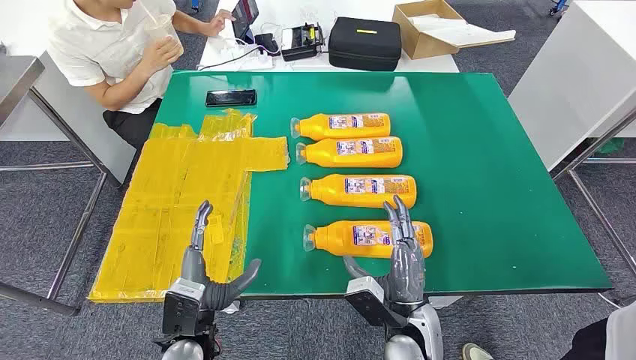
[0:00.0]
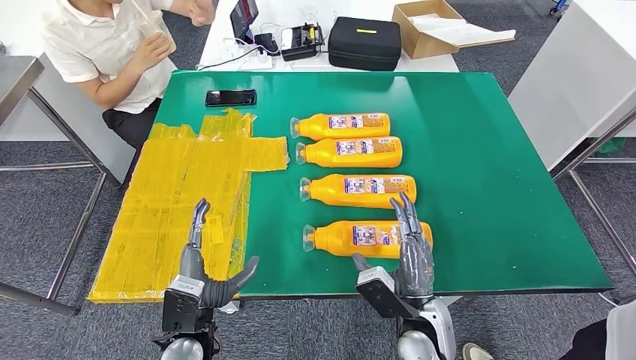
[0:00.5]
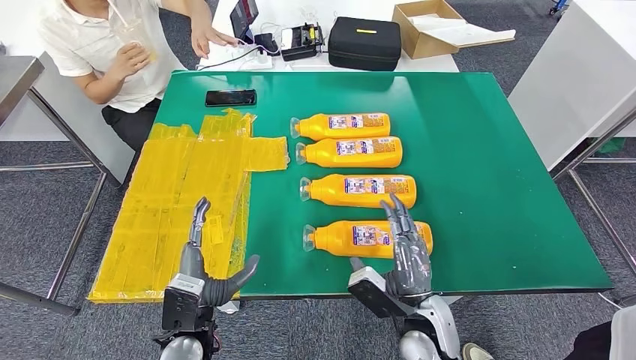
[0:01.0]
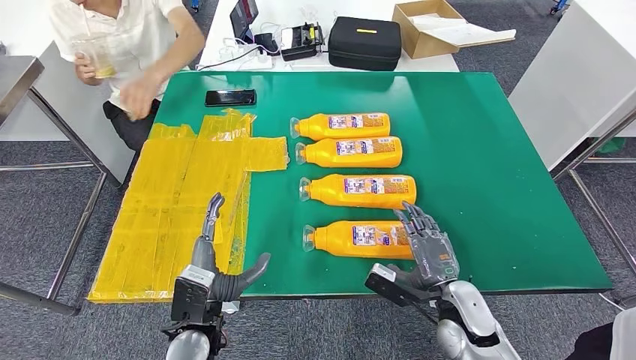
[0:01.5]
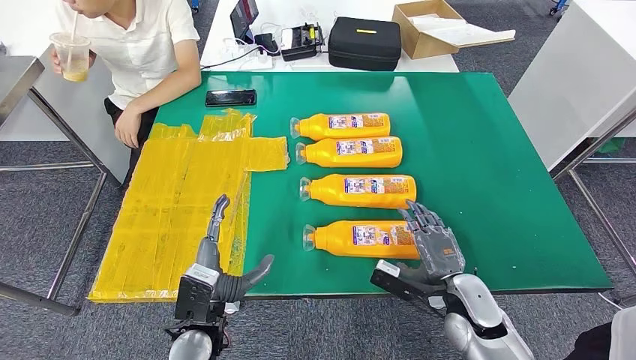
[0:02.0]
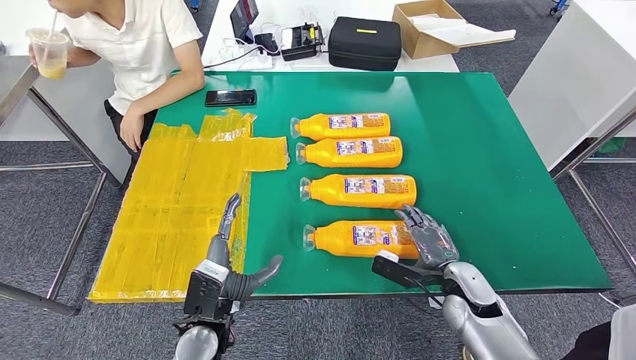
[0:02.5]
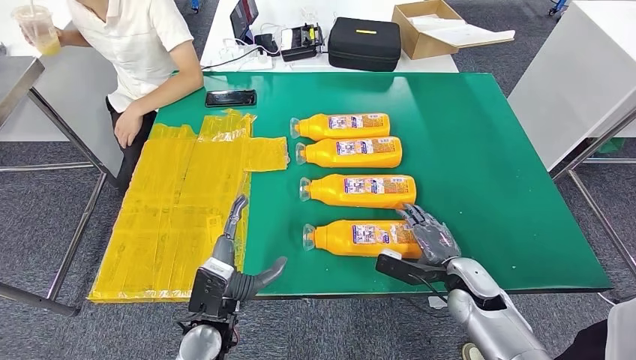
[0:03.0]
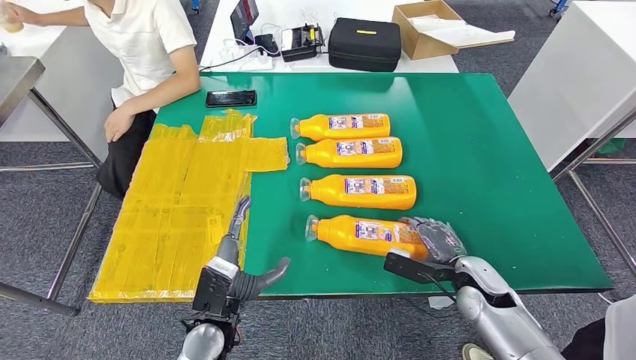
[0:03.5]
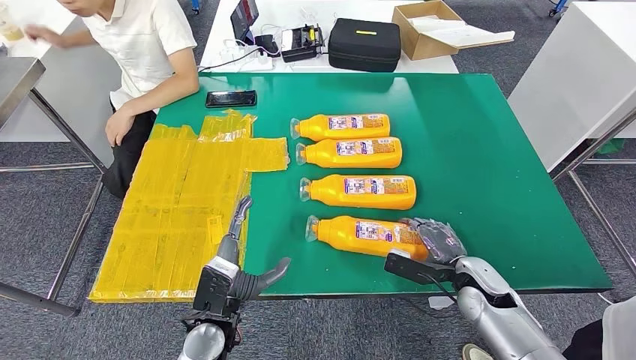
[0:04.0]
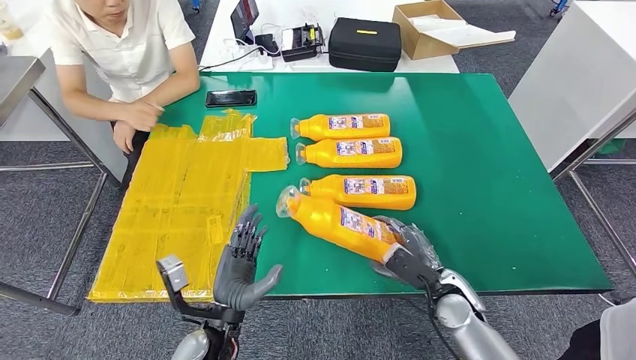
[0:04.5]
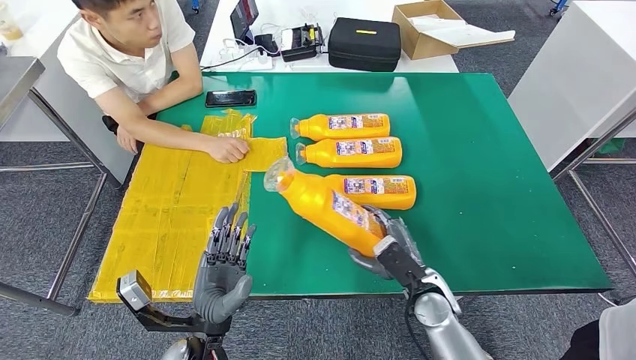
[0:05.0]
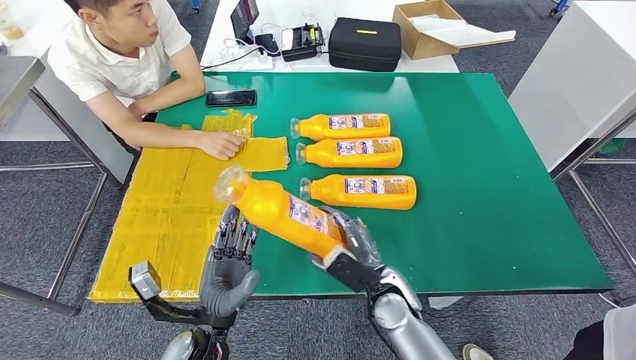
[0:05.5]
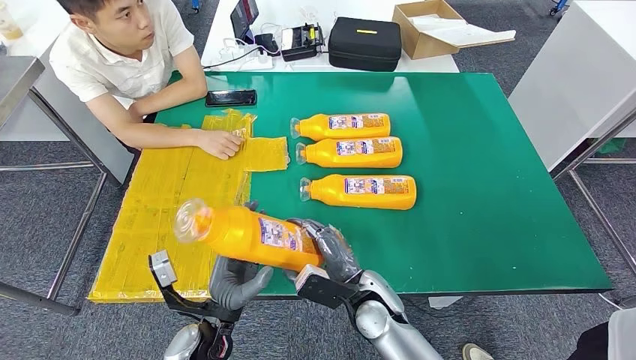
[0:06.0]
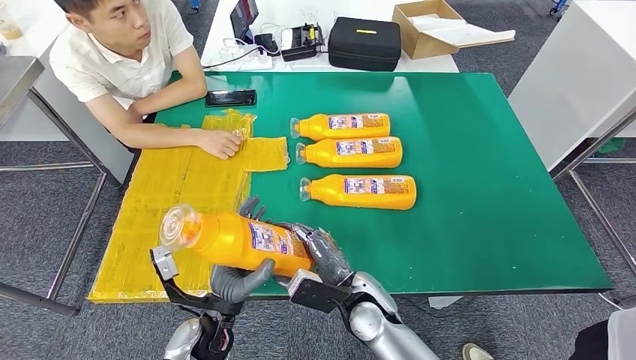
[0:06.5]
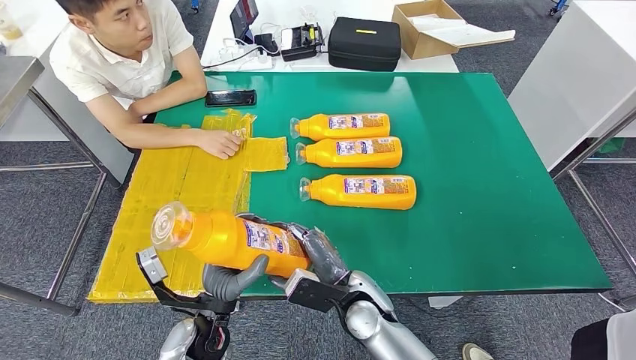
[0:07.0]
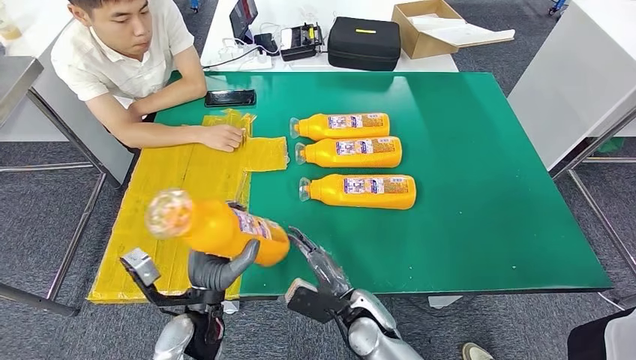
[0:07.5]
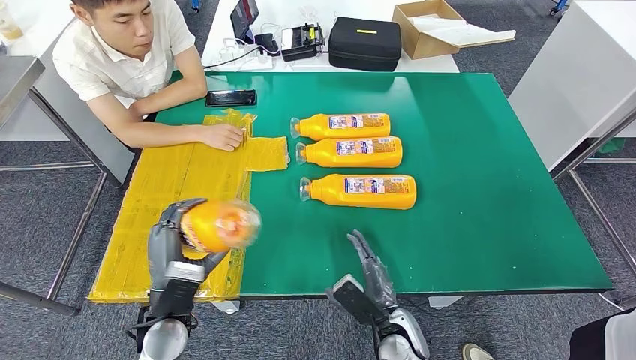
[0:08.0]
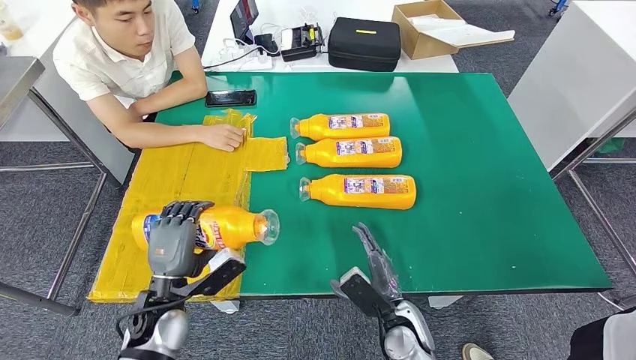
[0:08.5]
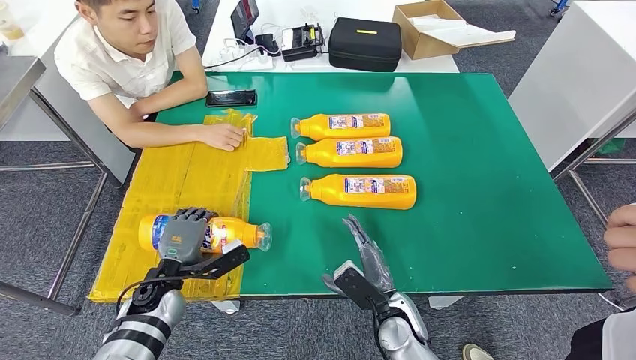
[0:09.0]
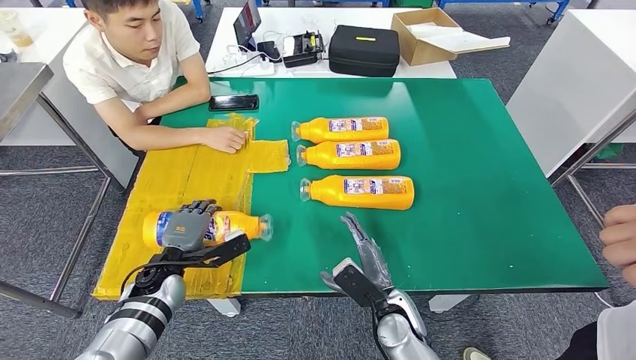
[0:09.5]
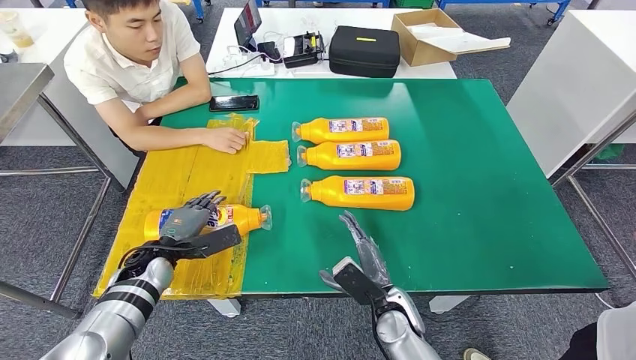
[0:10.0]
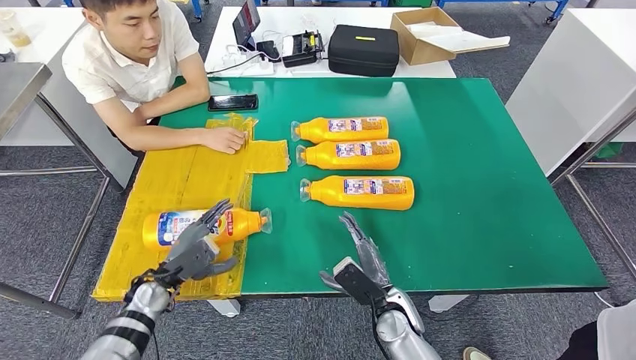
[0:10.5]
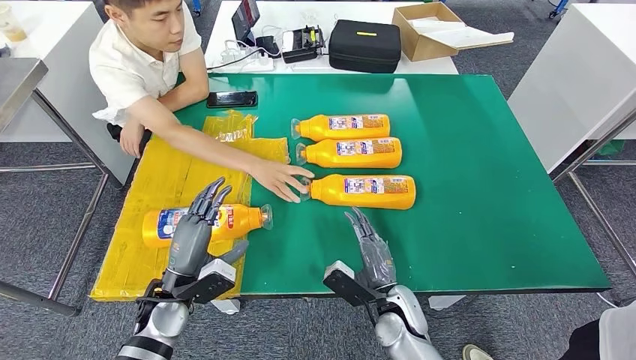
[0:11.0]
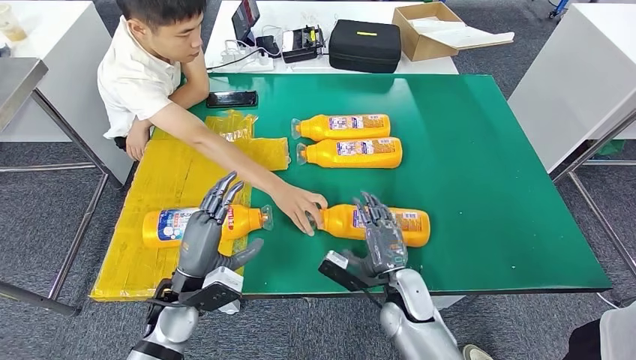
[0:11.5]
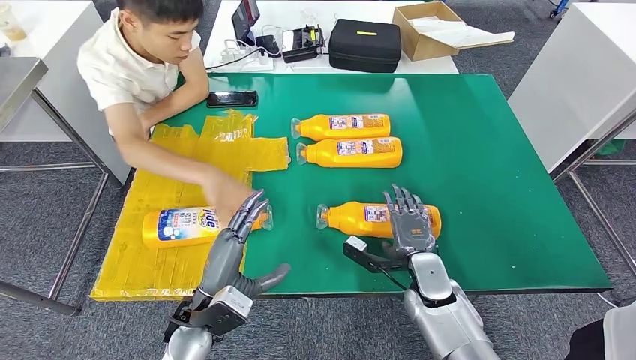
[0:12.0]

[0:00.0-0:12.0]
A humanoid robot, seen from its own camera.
Step, 0:00.0 to 0:05.5: Take the fast-moving consumer goods bottle from the table.
Step, 0:06.0 to 0:11.0: Flip the fast-moving consumer goods bottle to the front side.
0:02.0 to 0:04.0: The right hand moves approximately 5 cm.
0:06.0 to 0:08.0: The left hand is displaced to the left by some 5 cm. Meanwhile the right hand goes approximately 5 cm downward.

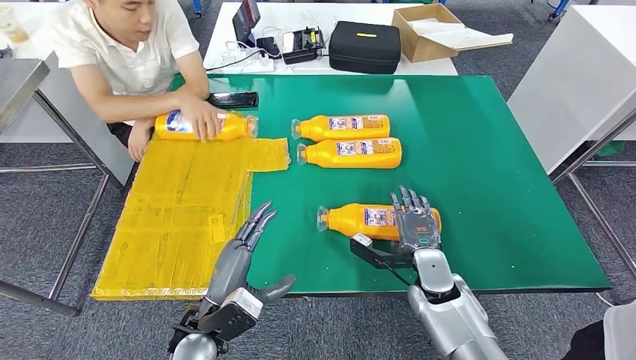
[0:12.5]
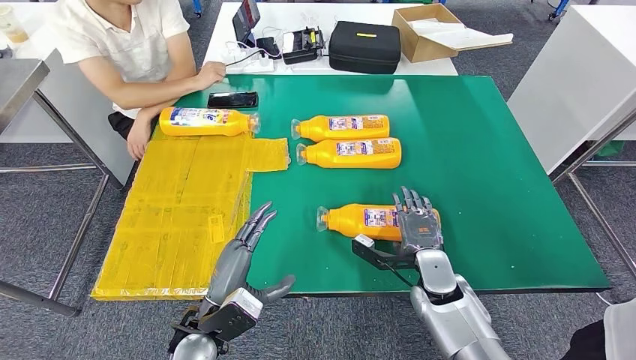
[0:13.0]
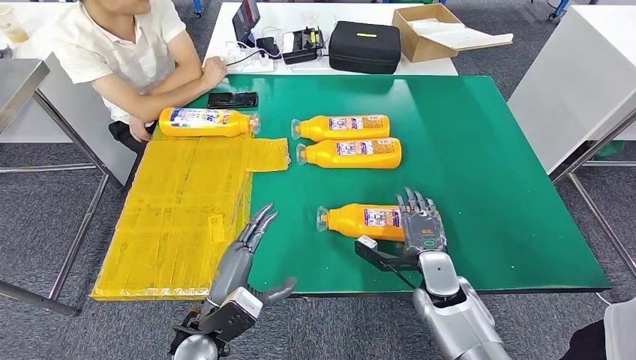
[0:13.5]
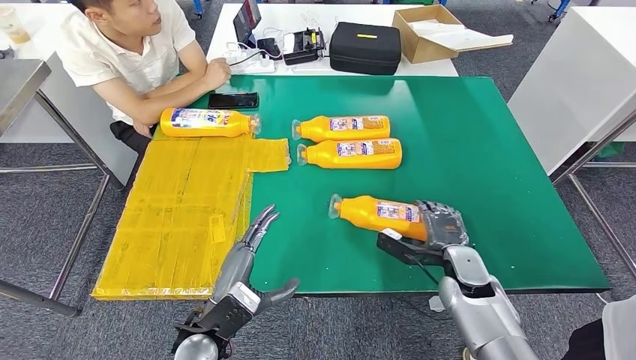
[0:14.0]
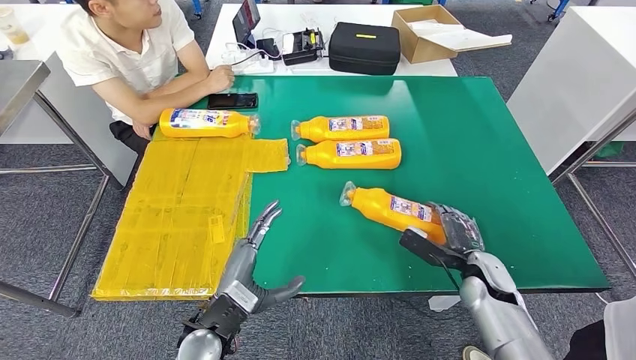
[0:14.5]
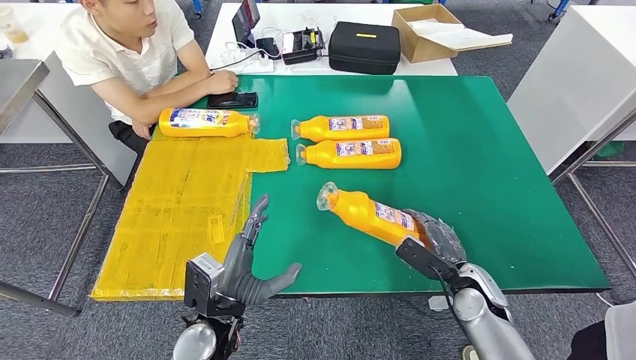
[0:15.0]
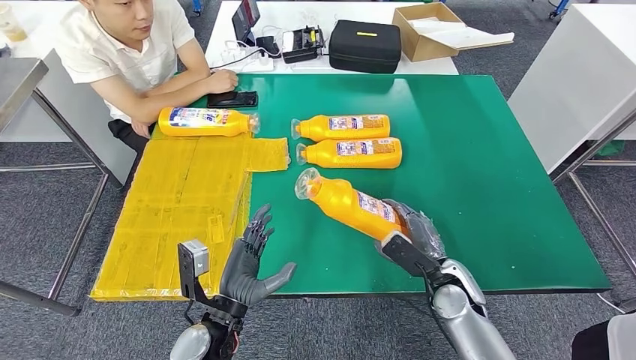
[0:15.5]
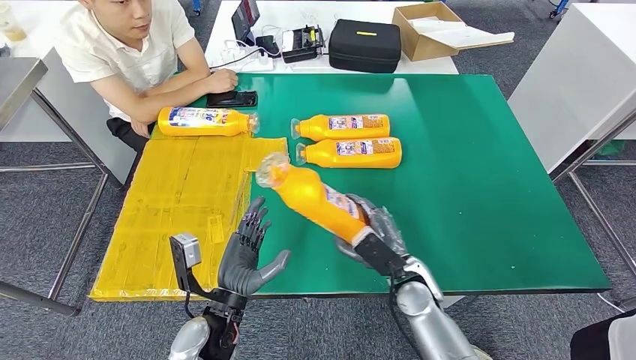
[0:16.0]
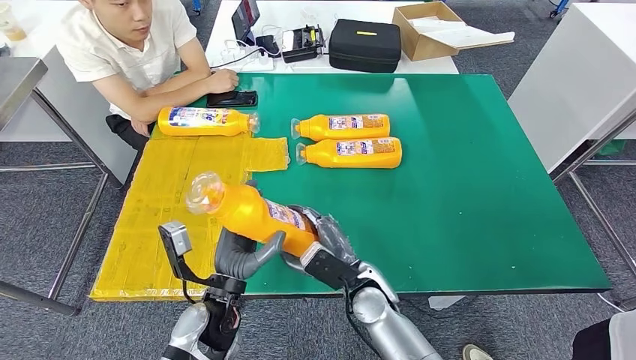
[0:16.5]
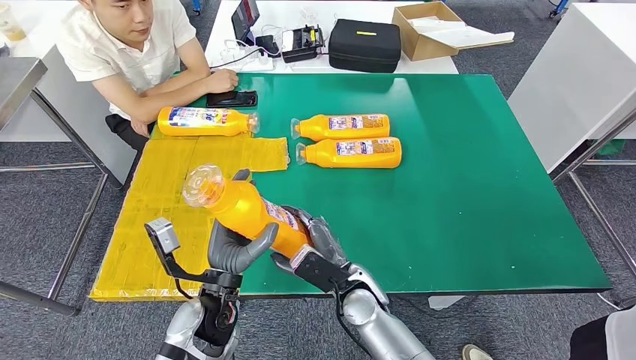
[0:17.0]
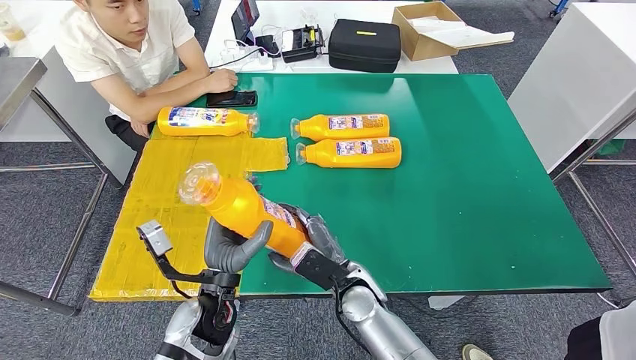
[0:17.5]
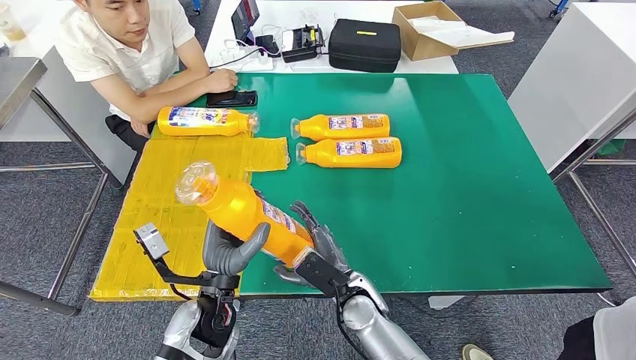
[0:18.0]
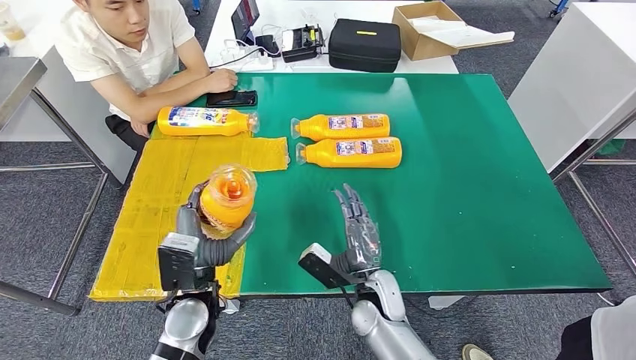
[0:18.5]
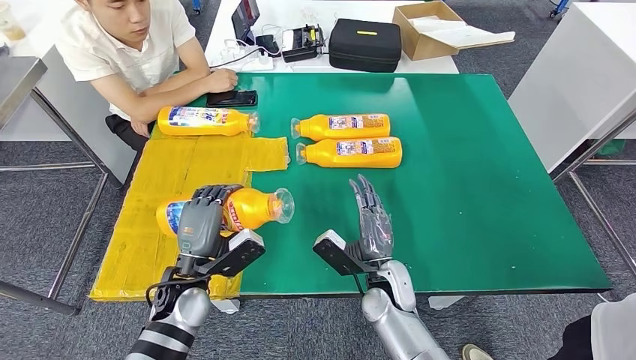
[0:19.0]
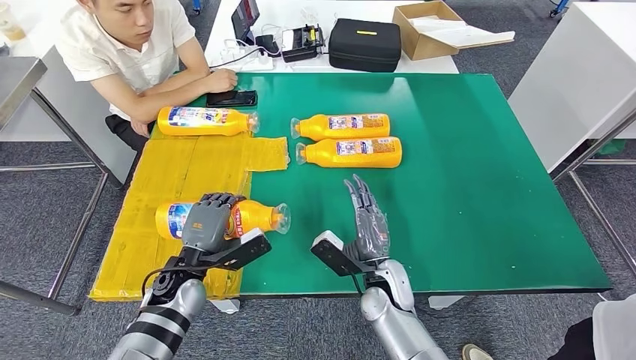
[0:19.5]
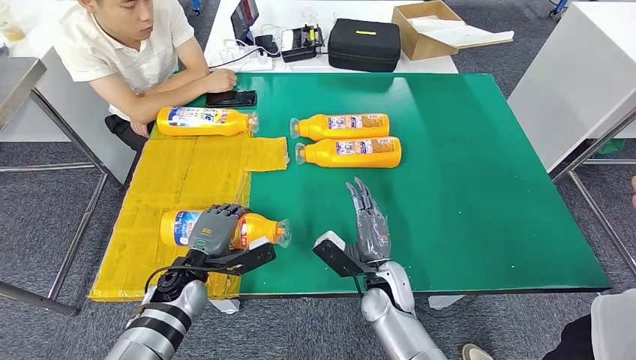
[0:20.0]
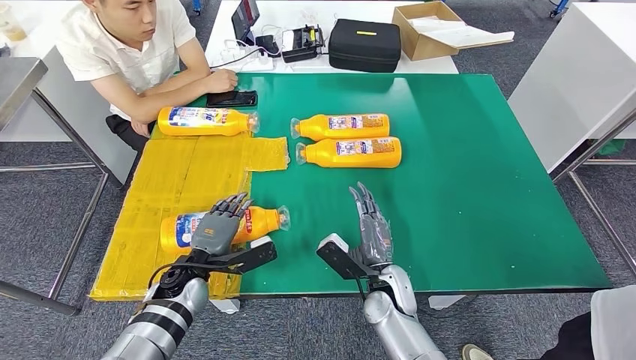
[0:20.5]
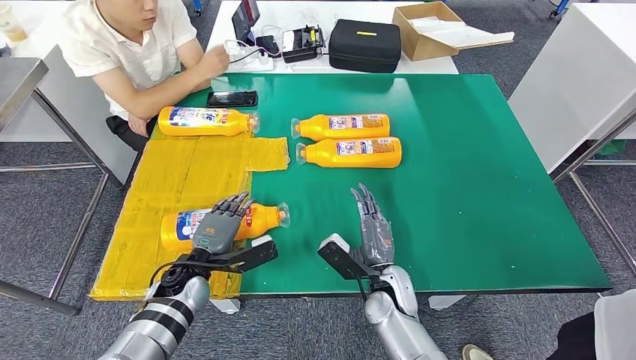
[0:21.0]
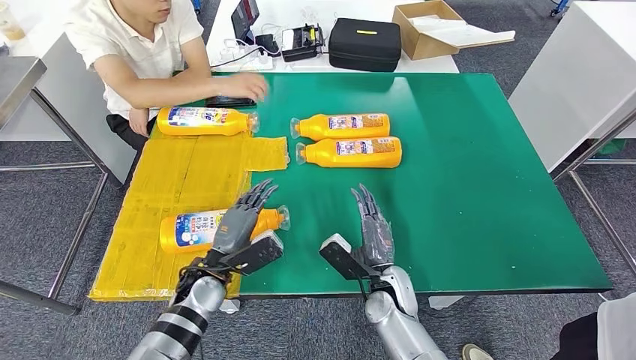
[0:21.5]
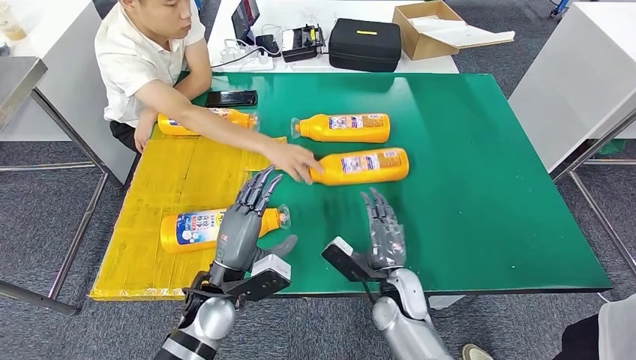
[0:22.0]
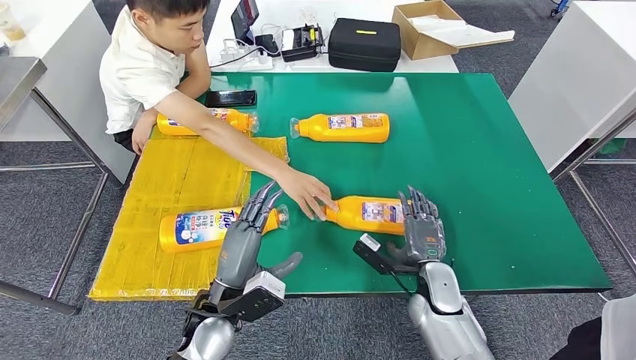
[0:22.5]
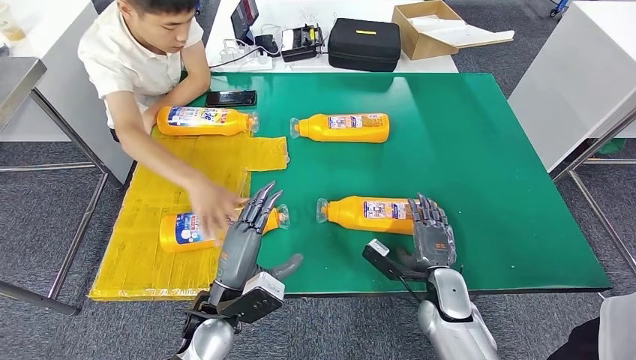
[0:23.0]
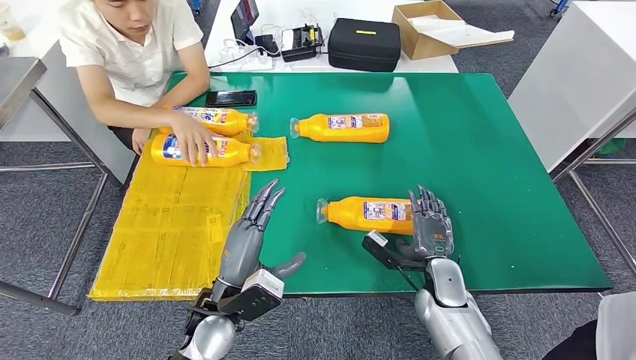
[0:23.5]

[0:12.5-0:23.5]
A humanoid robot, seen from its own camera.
Step, 0:12.5 to 0:18.0: Pick up the fast-moving consumer goods bottle from the table.
Step, 0:19.0 to 0:23.0: Flip the fast-moving consumer goods bottle to the front side.
0:12.5 to 0:14.5: The right hand travels to the right by approximately 10 cm.
0:16.0 to 0:18.0: The right hand travels to the left by about 10 cm.
0:18.0 to 0:20.0: The right hand moves to the right, some 5 cm; the left hand shifts some 15 cm to the left, forward and downward.
0:20.0 to 0:21.5: The left hand shifts by approximately 5 cm.
